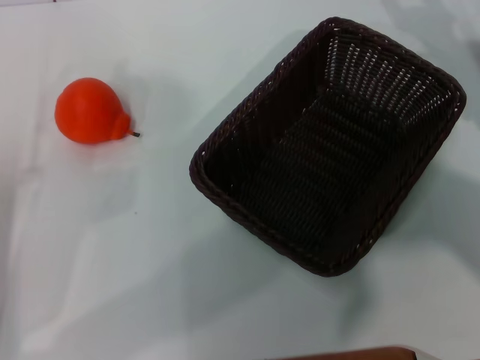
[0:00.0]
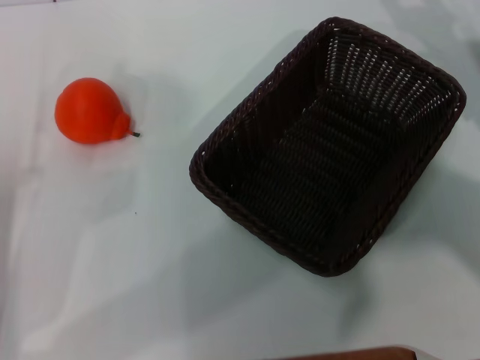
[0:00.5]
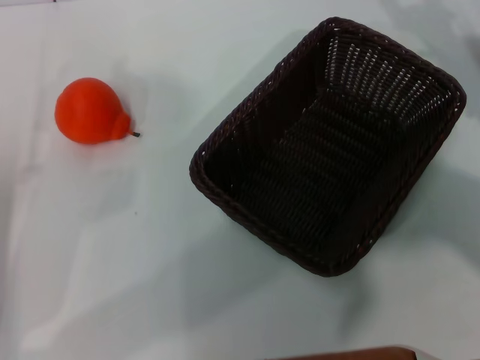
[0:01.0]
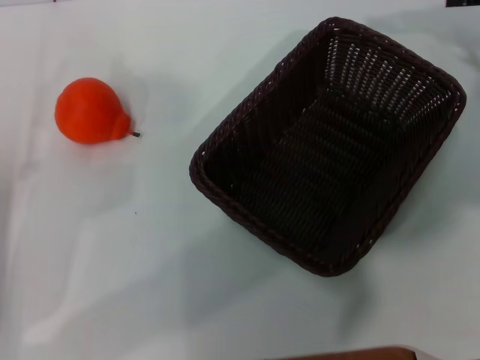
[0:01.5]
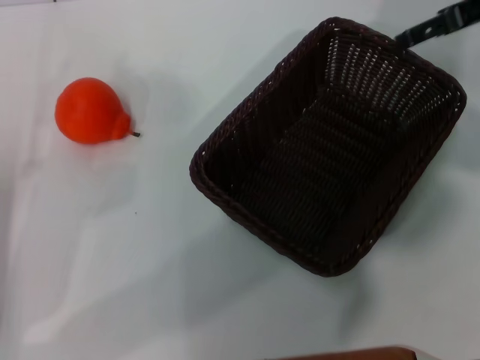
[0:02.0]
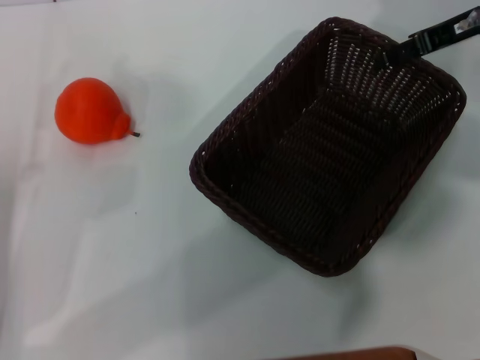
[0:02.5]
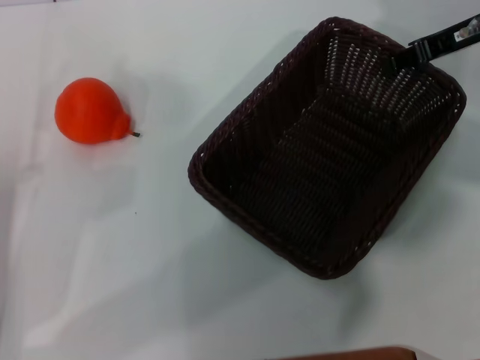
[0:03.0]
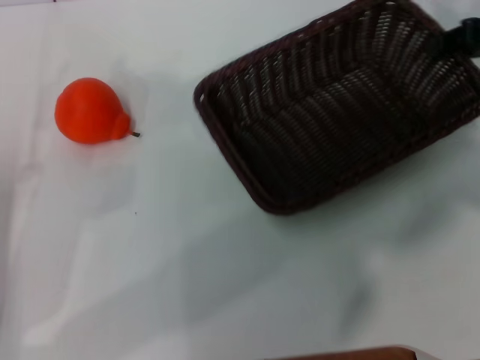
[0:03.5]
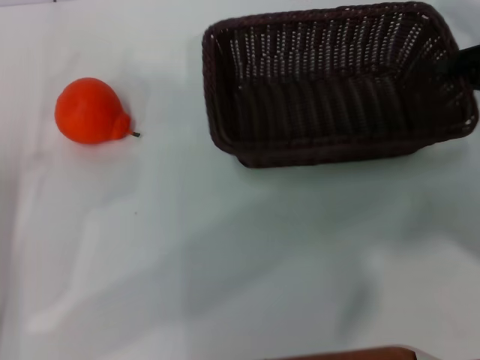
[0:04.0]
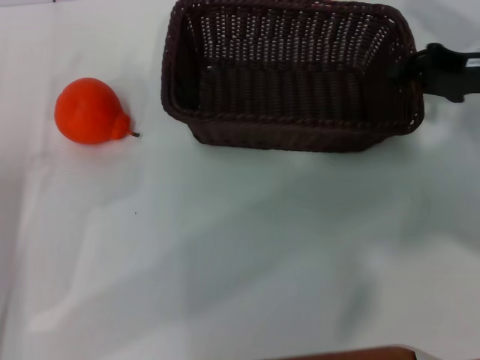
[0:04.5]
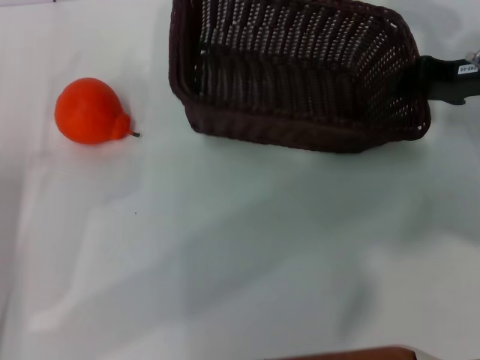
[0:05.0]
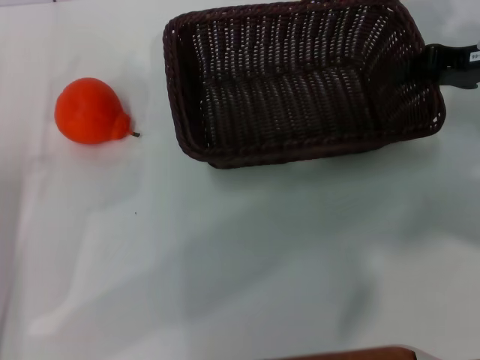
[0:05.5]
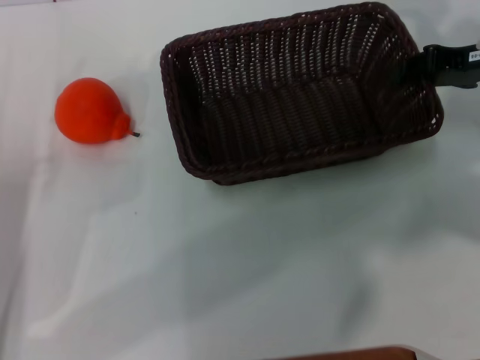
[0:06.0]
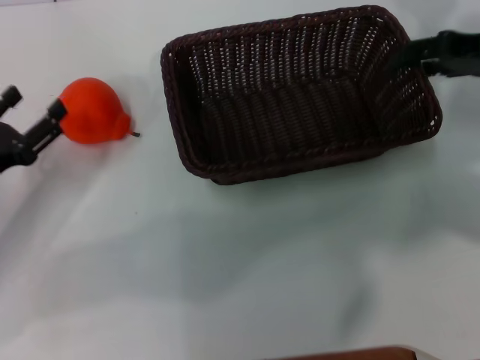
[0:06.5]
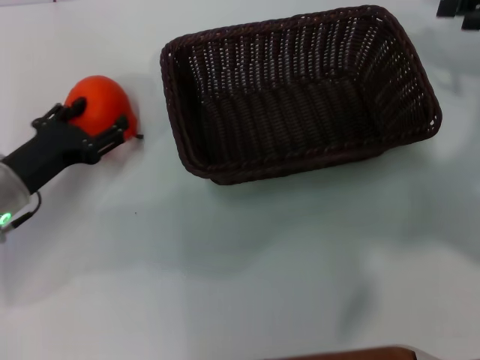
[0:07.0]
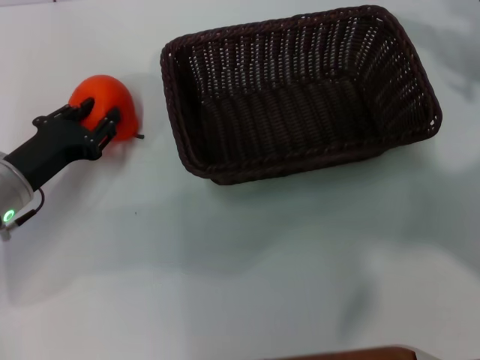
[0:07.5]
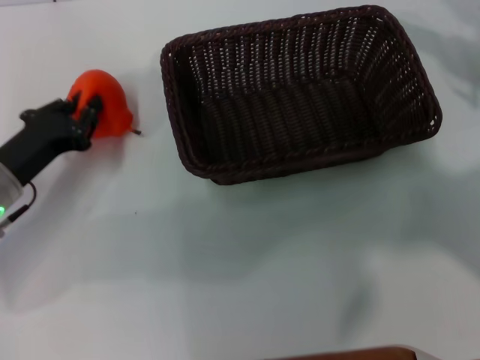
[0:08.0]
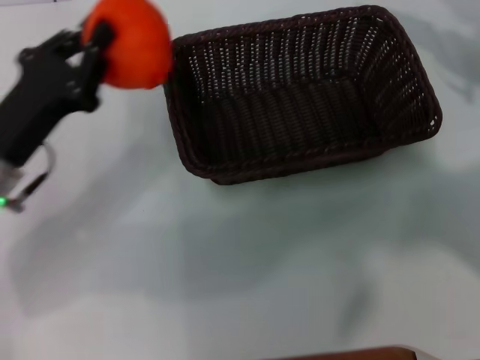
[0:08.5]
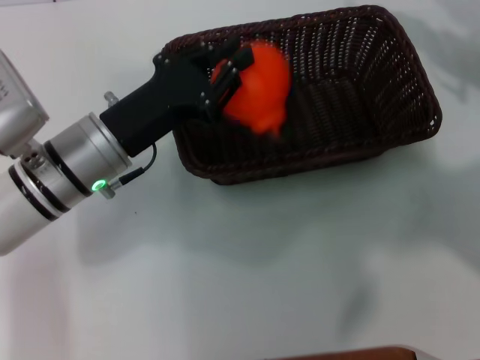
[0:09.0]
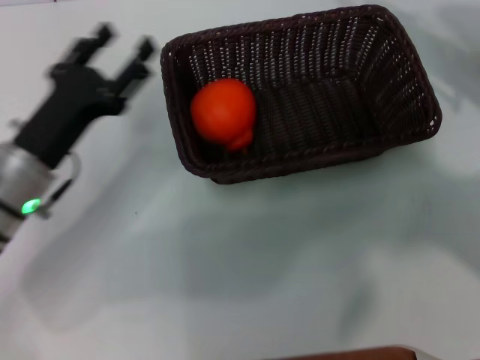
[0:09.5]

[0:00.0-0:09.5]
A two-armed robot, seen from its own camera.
Task of the whole recording: the right gripper pick up the black basket and place it horizontally in the middle of the table, the left gripper pick up the orange and place it into the black basket.
Step, 0:00.0 to 0:03.0: Pick up the dark basket with the right gripper.
Step, 0:03.5 to 0:06.0: Place the dark basket in the center of view with the right gripper.
Step, 0:06.5 to 0:08.0: Pick up the orange with the left gripper.
Step, 0:08.5 to 0:09.0: Place the orange into the dark basket with the left gripper.
0:00.0 to 0:02.0: The right gripper shifts about 15 cm upward and forward.
0:02.0 to 0:04.0: The right gripper shifts about 10 cm backward and downward, and closes up.
0:04.0 to 0:05.5: The right gripper changes place by roughly 5 cm.
0:05.5 to 0:07.5: The right gripper goes roughly 5 cm to the right, and opens up, while the left gripper moves forward, approximately 10 cm.
0:07.5 to 0:09.5: The left gripper closes, then opens again.

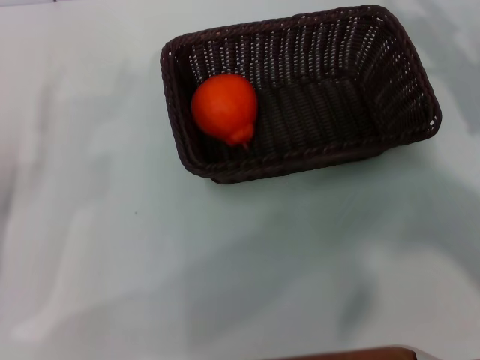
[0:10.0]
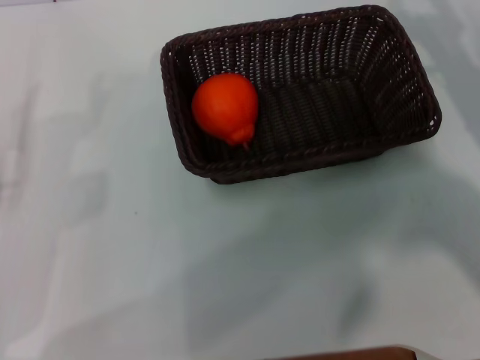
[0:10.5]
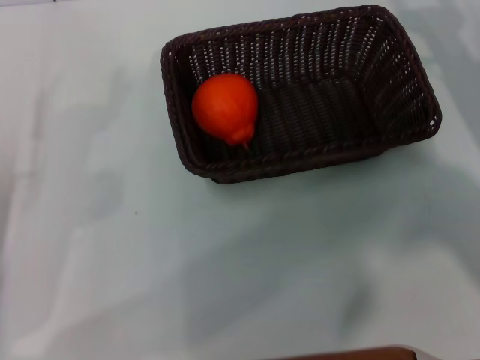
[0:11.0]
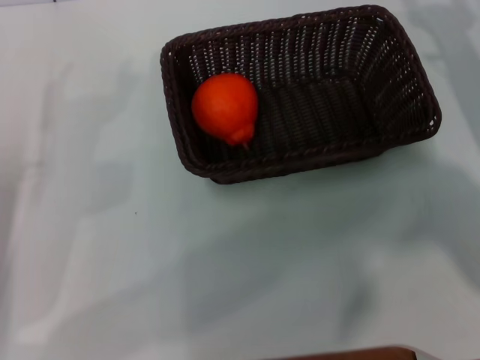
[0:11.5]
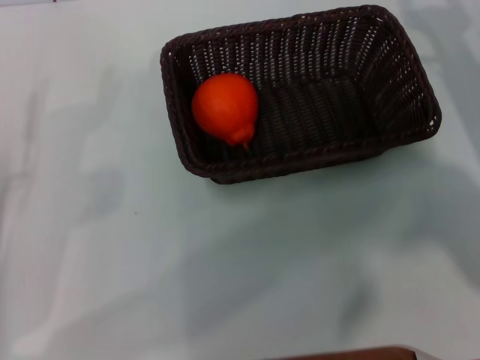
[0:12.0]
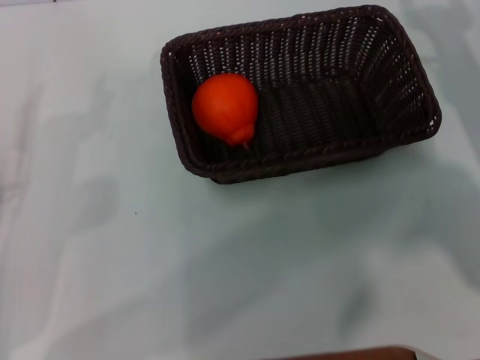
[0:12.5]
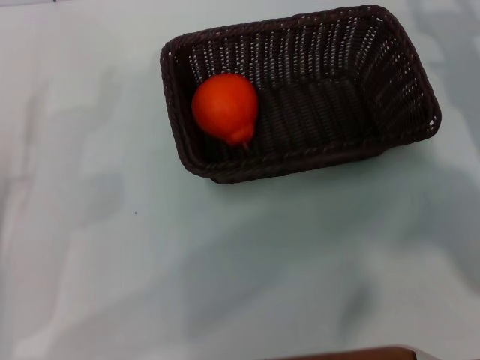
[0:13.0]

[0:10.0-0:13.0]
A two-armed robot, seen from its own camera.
Task of the whole recording: the right gripper pick up the black basket and place it horizontally in the middle of the table, the left gripper pick up the orange and place it into the black basket.
0:10.0 to 0:11.5: The grippers stay close to where they were, moving slightly.
